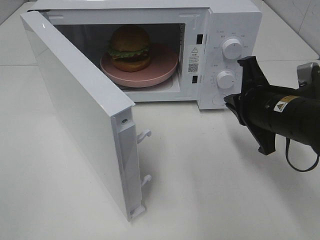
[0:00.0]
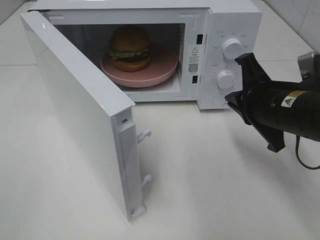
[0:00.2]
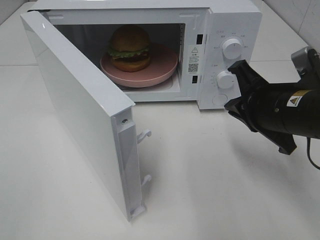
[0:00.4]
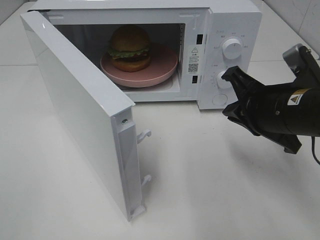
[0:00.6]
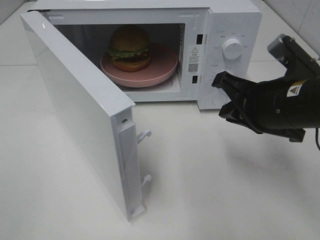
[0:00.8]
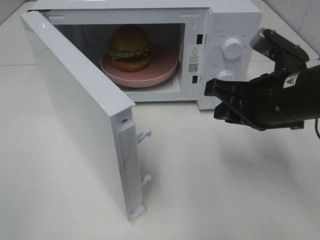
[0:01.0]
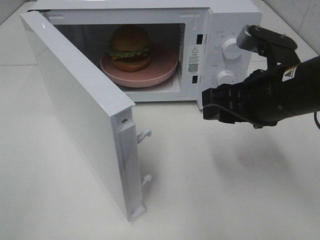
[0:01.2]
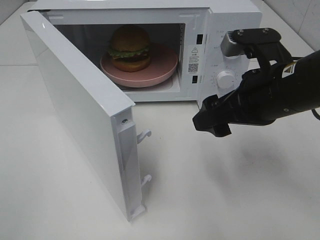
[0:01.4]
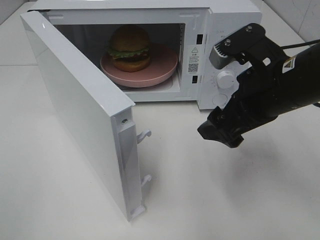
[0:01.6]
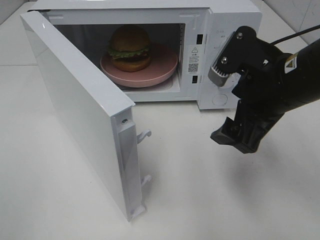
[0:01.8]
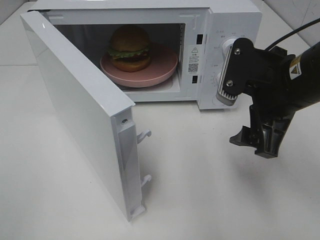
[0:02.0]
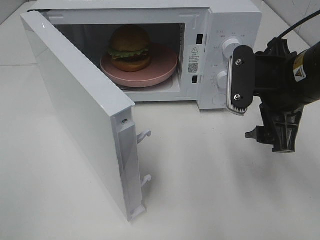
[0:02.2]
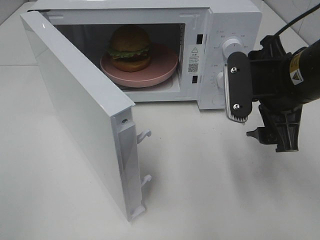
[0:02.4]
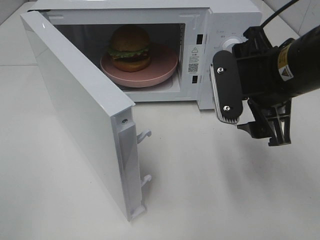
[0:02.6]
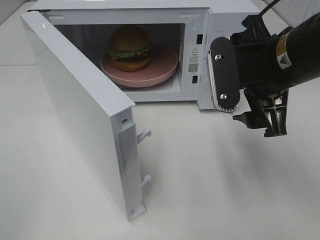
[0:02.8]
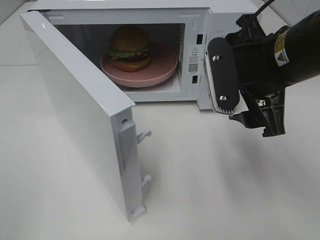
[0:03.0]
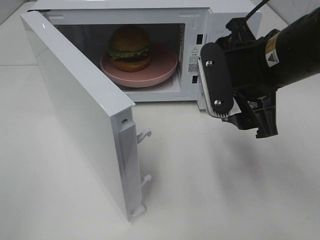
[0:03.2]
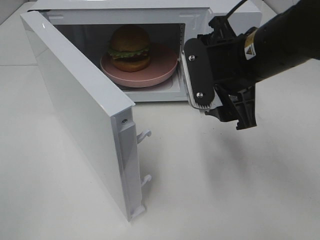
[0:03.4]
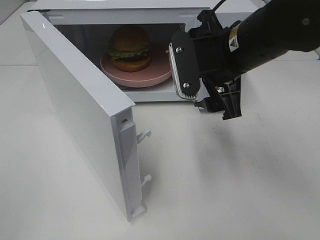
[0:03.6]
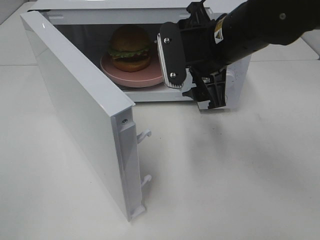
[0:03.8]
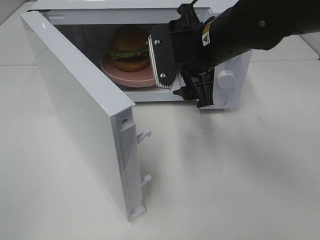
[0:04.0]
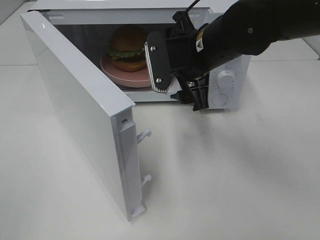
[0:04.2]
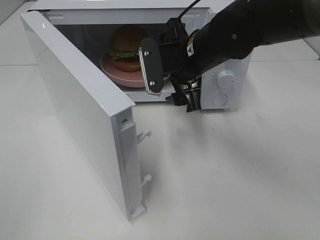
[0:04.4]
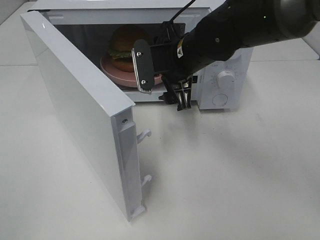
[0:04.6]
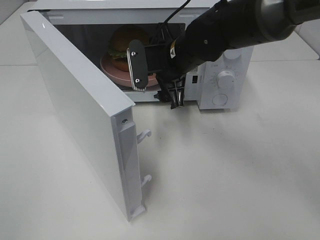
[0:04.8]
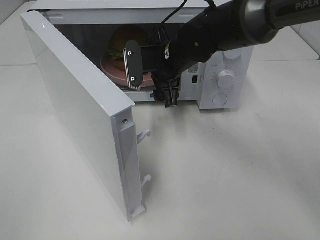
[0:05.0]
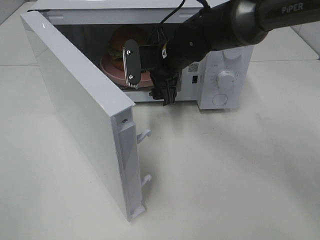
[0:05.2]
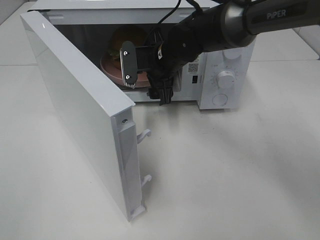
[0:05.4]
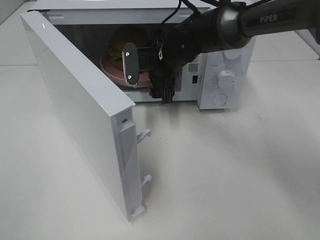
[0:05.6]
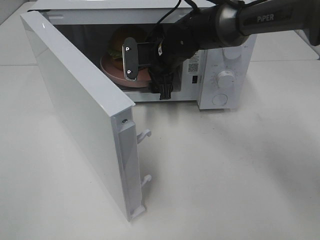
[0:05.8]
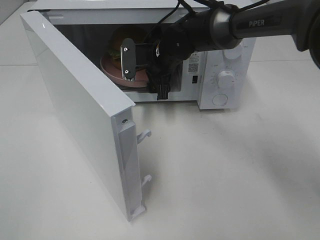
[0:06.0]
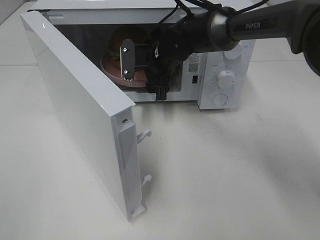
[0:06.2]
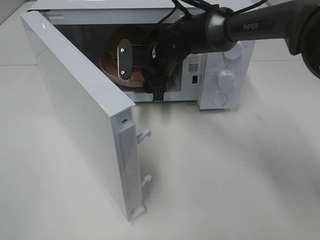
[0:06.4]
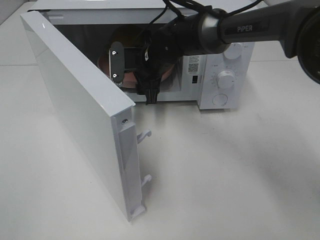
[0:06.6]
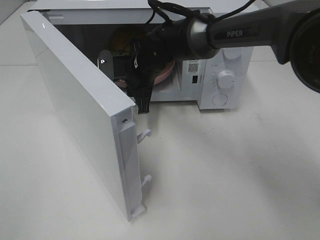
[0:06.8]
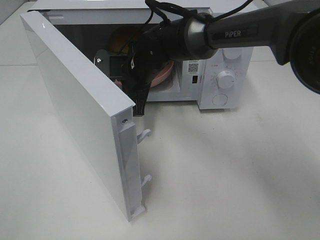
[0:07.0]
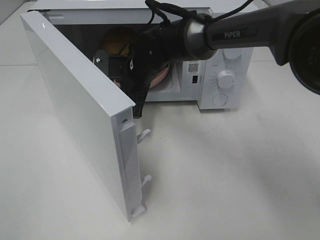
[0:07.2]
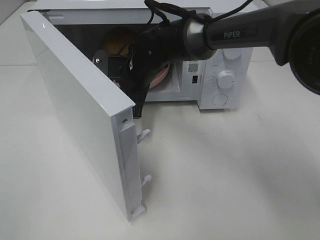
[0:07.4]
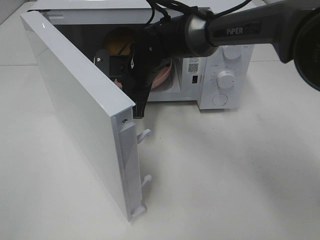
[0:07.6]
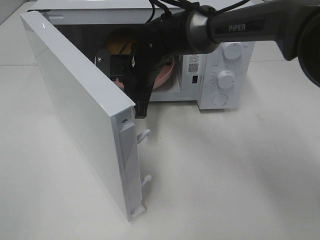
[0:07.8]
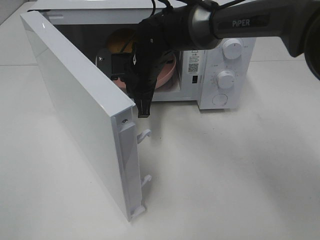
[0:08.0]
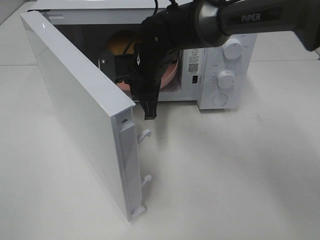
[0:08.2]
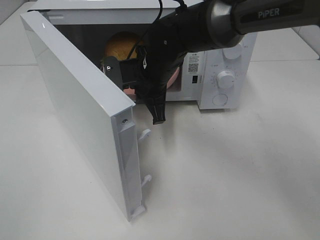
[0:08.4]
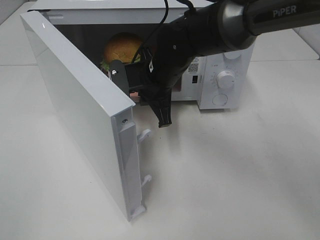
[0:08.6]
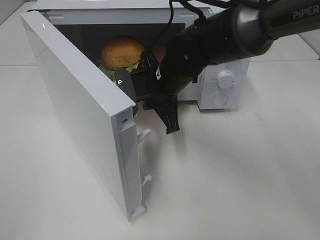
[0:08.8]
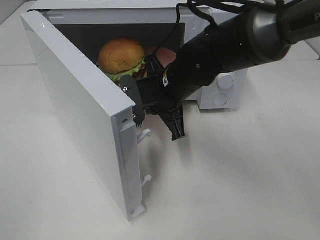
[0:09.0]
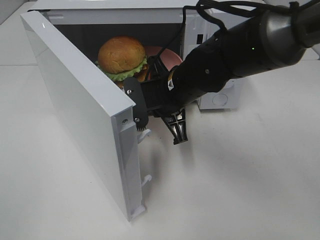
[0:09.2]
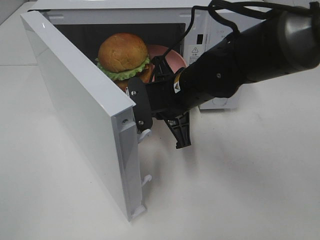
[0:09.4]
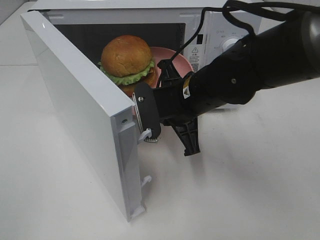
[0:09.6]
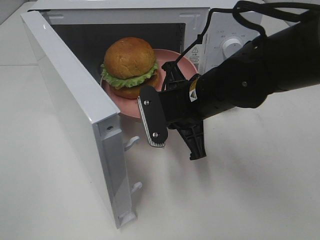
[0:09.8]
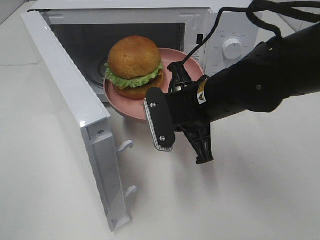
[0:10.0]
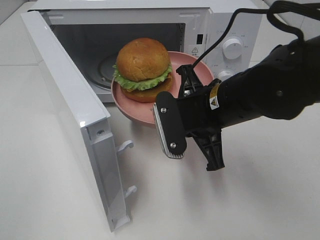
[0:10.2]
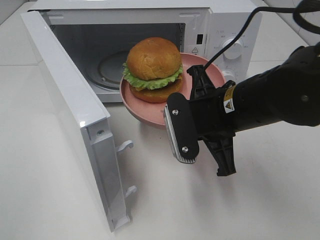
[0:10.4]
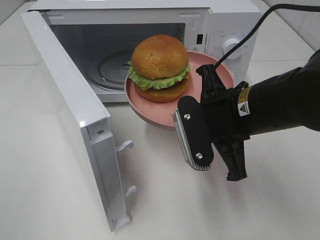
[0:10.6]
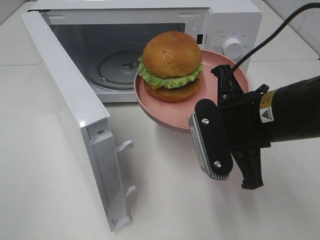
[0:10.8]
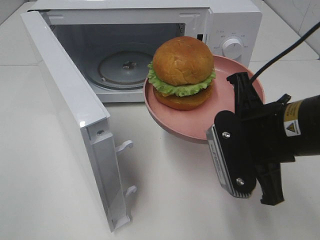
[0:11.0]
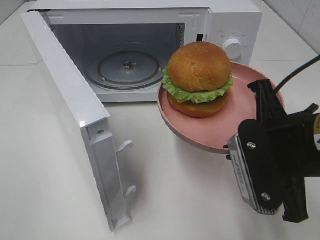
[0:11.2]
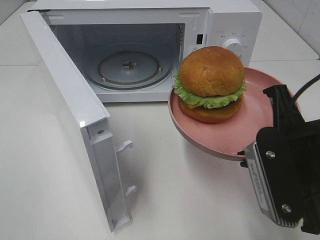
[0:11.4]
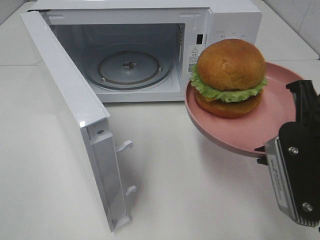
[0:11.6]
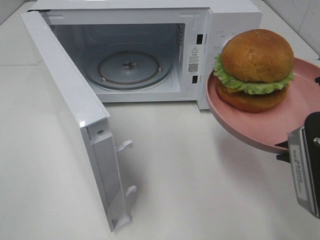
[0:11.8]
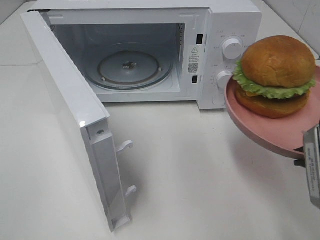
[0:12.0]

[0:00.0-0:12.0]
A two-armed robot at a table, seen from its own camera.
Task of the whole recording: Heat the burger.
Step, 0:00.0 to 0:07.0: Right hand: grab the plate with the hamburger.
0:00.0 to 0:01.6: The right gripper is displaced upward by about 5 cm, and opens its fingers.
0:03.0 to 0:04.4: The right gripper moves forward, to the left and downward, about 15 cm.
0:04.4 to 0:06.0: The right gripper travels forward and downward by about 10 cm.
0:06.0 to 0:07.6: The right gripper ends up about 5 cm from where it was, and closes up.
0:07.6 to 0:09.0: The right gripper moves backward and to the right, about 10 cm.
0:09.0 to 0:10.4: The right gripper heads backward and to the right, covering roughly 10 cm.
0:10.4 to 0:12.0: The right gripper moves backward, to the right and upward, some 20 cm.

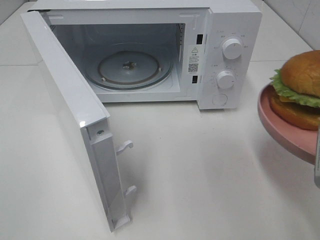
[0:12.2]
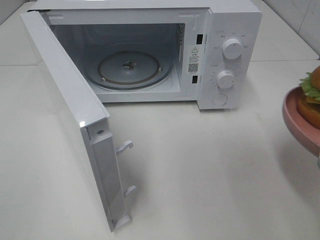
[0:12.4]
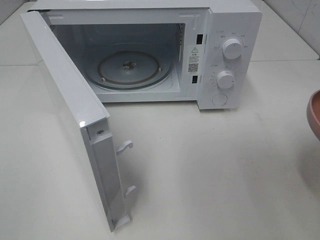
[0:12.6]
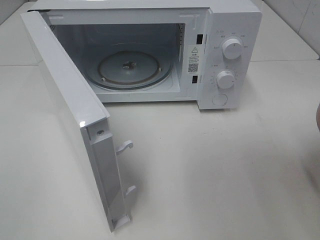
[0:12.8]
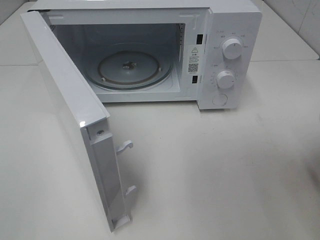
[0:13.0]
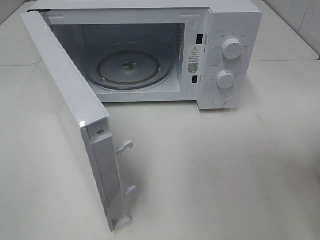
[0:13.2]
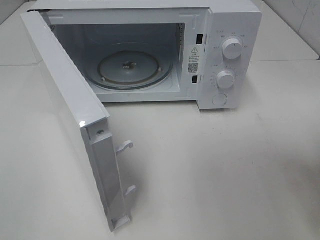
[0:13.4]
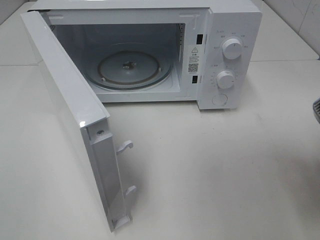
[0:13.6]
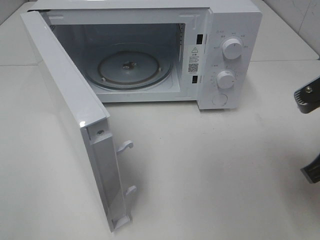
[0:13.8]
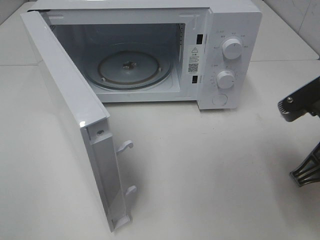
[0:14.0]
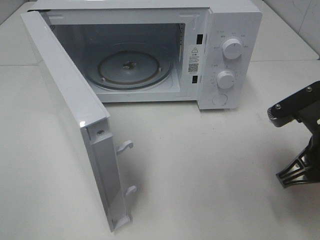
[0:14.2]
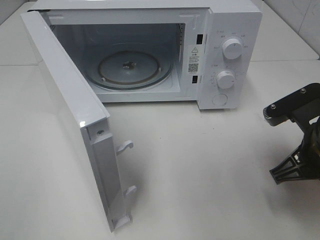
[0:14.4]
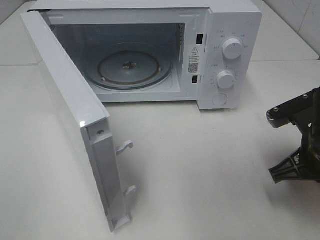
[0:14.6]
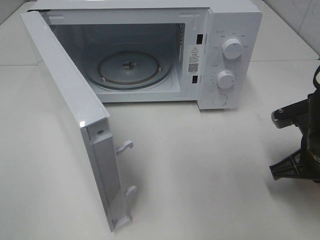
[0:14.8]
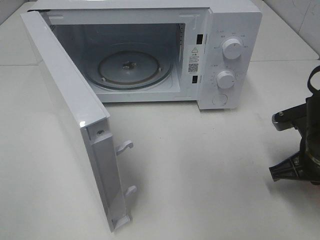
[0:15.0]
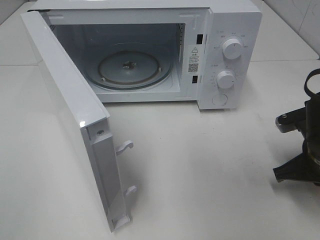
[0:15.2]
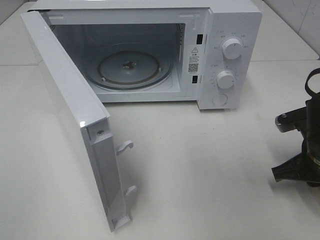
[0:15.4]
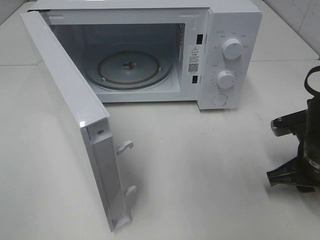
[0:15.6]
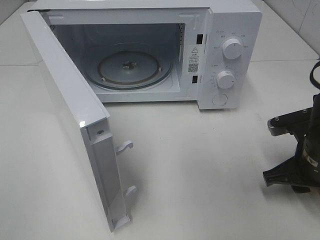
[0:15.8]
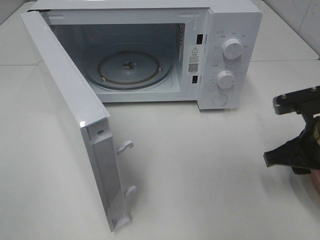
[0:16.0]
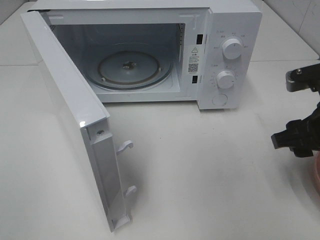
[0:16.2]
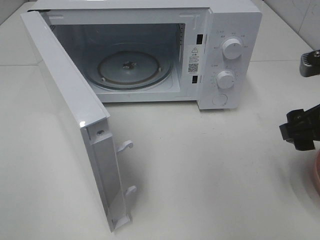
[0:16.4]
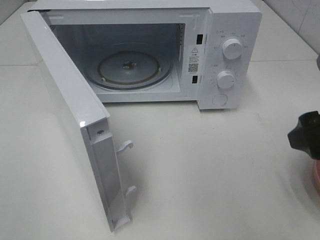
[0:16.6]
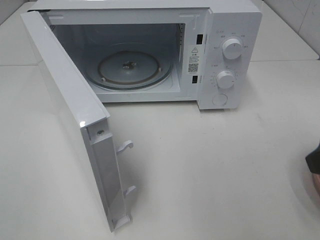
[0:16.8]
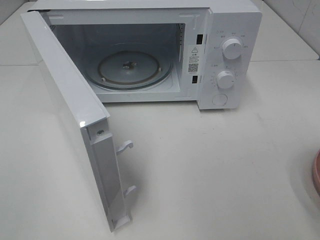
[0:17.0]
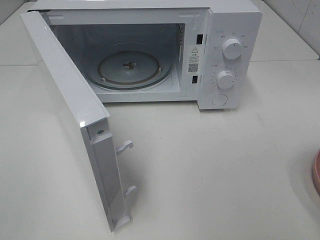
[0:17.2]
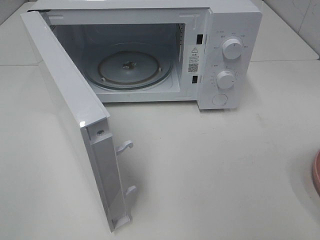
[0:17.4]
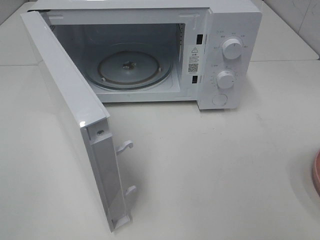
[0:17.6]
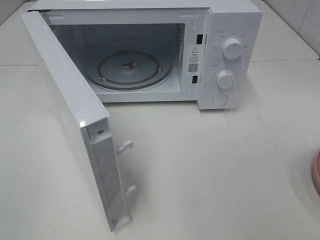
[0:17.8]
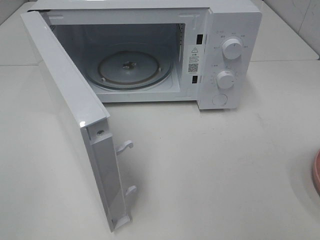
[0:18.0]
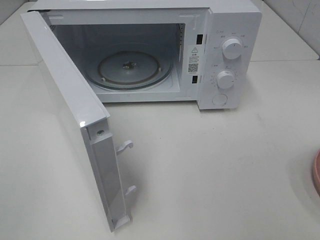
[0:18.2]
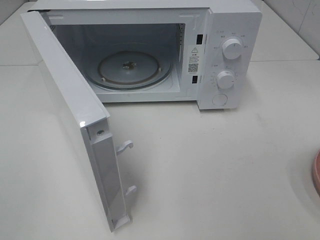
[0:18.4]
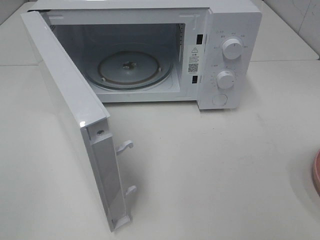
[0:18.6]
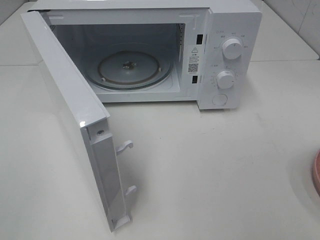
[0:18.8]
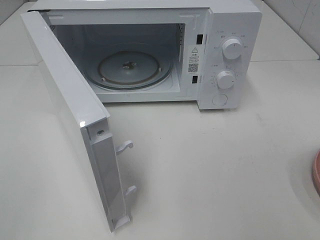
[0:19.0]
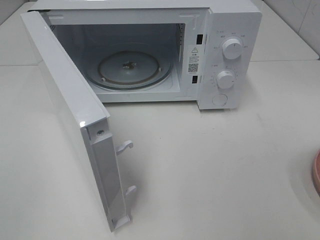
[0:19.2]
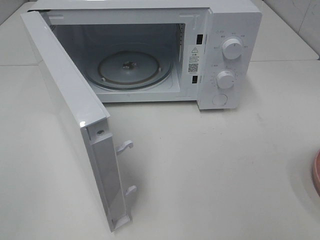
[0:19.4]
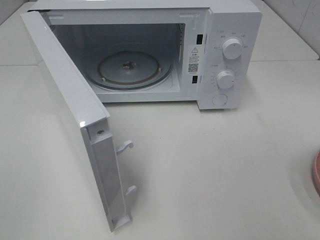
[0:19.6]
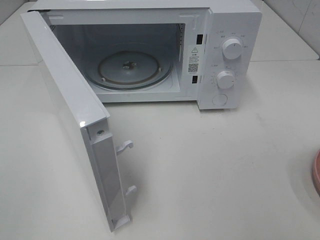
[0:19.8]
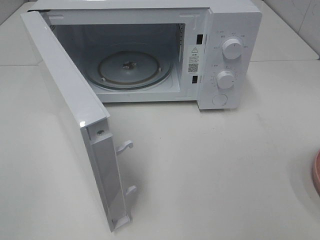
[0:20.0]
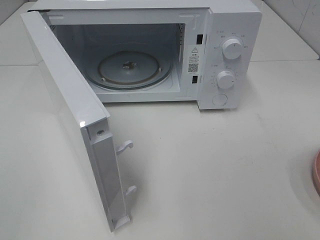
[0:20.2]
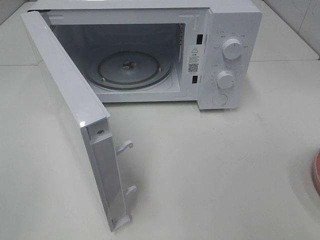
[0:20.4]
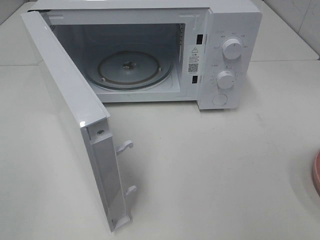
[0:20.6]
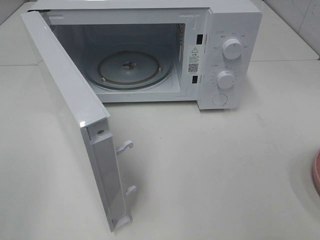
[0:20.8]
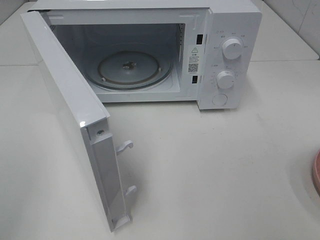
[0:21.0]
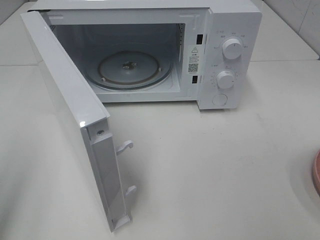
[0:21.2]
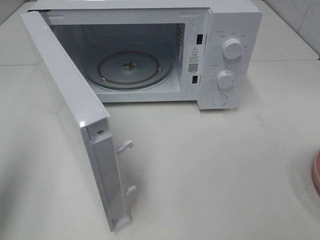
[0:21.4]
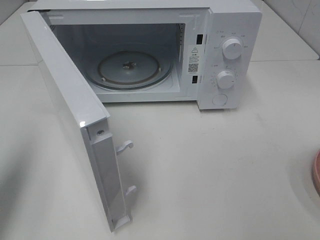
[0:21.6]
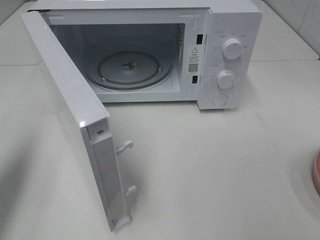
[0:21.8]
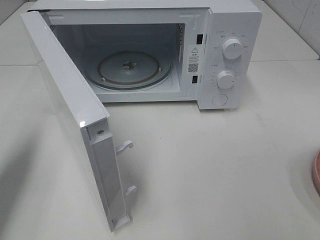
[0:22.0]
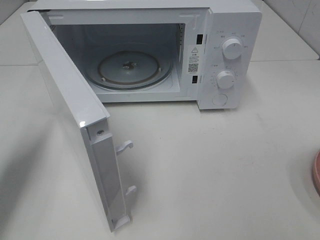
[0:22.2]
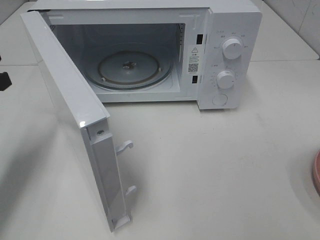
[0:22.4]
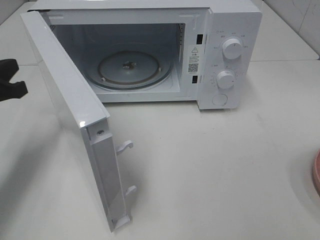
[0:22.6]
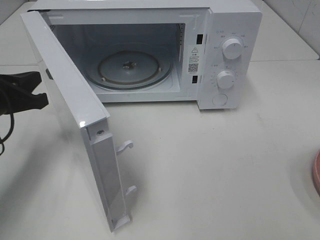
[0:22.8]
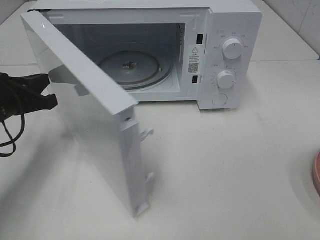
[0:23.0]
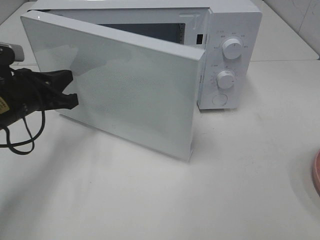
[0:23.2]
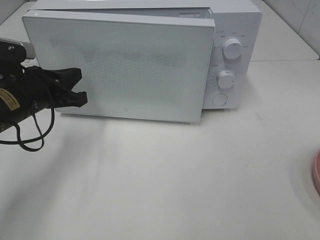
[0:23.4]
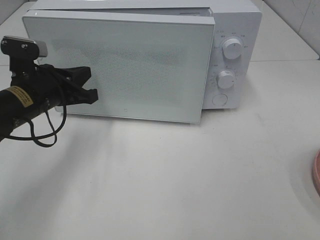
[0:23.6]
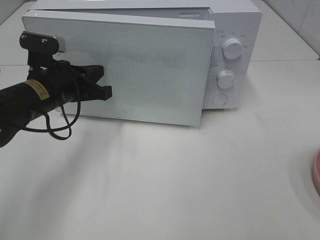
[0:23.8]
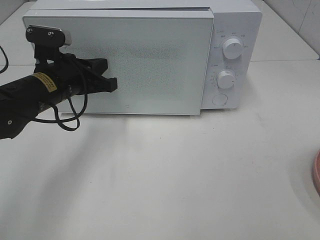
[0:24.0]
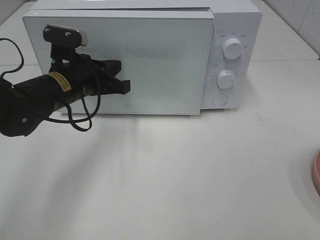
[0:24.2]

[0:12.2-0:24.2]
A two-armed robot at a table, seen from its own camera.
Task of the whole recording: Heat the burger.
Step, 0:12.2 to 0:15.0: Right hand: place the plate on the table.
0:13.8 to 0:15.2: The right gripper travels downward and forward by approximately 15 cm.
0:15.2 to 0:16.6: The right gripper moves upward and backward, roughly 15 cm, and opens up.
0:16.6 to 0:18.2: The right gripper travels backward by approximately 15 cm.
0:18.2 to 0:19.8: Both grippers stay put.
0:19.8 to 0:21.2: The left gripper shifts approximately 10 cm forward, and closes.
0:21.2 to 0:22.6: The left gripper travels forward and downward by some 25 cm.
0:22.6 to 0:24.2: The left gripper goes about 15 cm to the right and forward.
